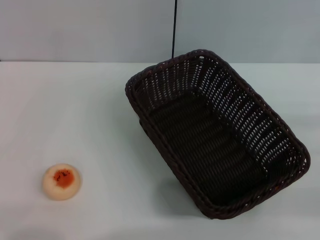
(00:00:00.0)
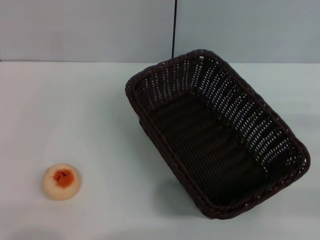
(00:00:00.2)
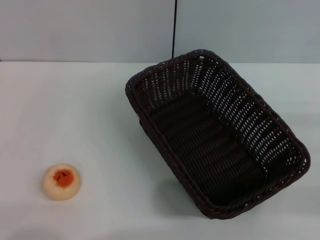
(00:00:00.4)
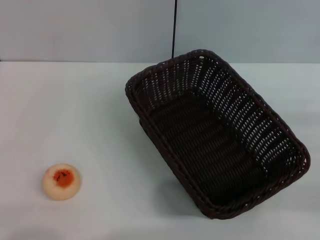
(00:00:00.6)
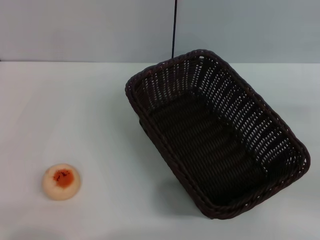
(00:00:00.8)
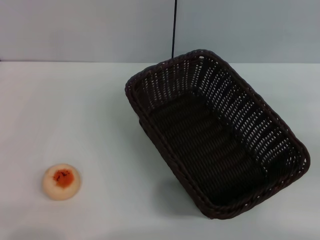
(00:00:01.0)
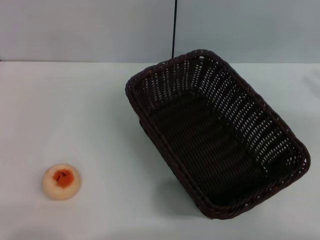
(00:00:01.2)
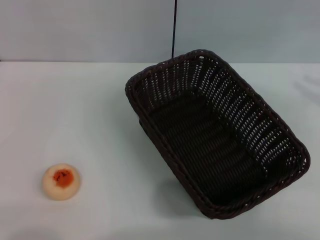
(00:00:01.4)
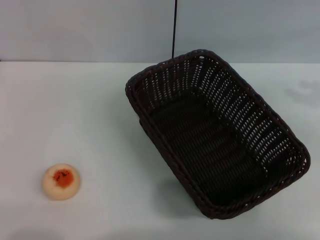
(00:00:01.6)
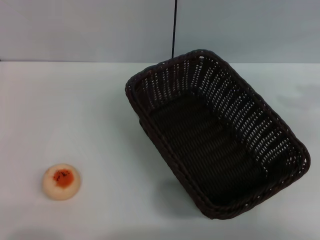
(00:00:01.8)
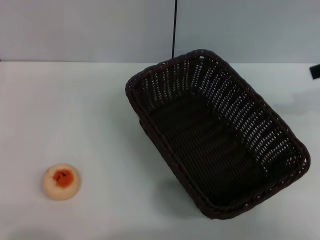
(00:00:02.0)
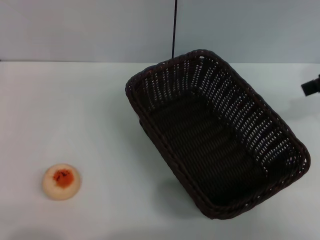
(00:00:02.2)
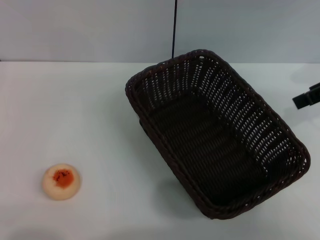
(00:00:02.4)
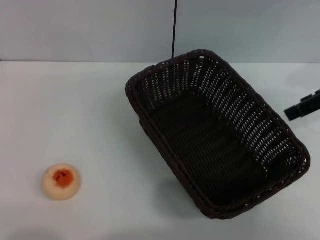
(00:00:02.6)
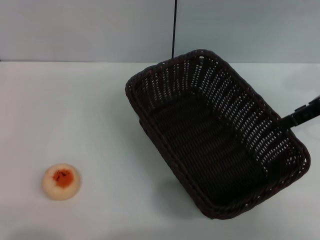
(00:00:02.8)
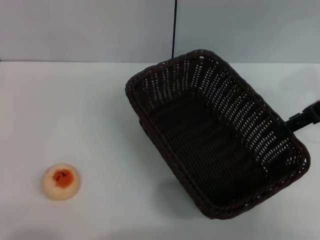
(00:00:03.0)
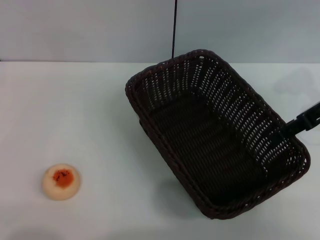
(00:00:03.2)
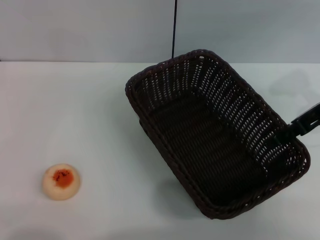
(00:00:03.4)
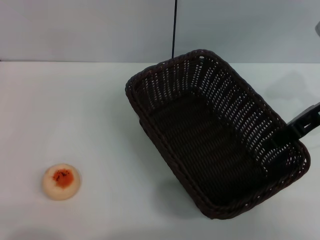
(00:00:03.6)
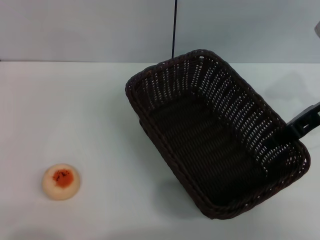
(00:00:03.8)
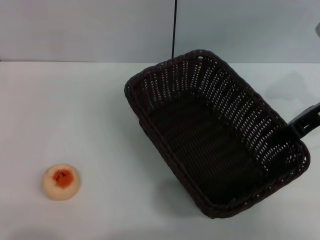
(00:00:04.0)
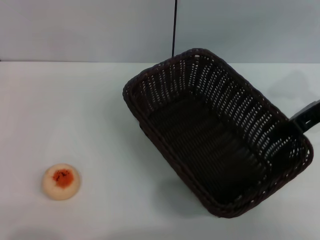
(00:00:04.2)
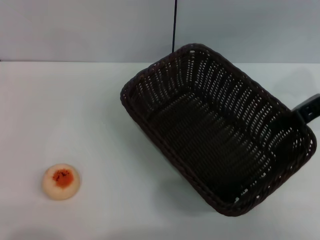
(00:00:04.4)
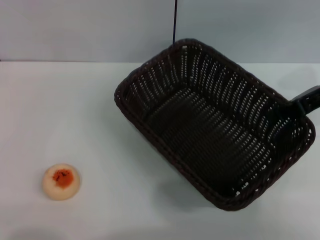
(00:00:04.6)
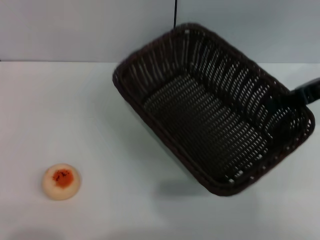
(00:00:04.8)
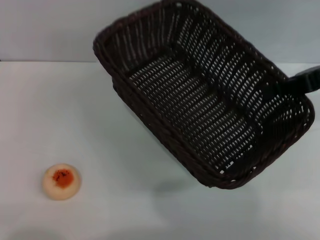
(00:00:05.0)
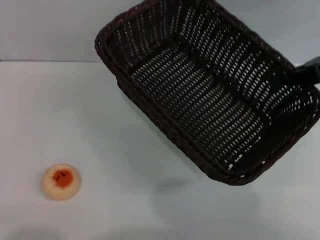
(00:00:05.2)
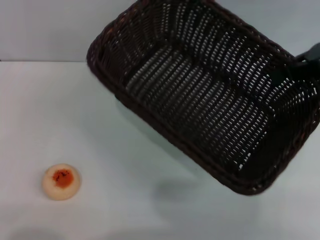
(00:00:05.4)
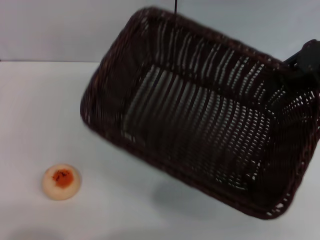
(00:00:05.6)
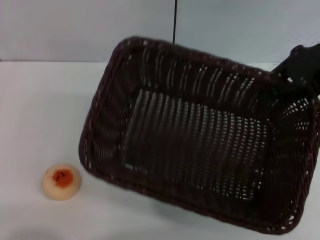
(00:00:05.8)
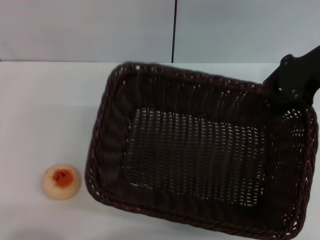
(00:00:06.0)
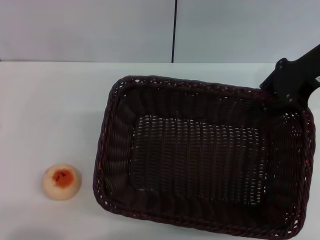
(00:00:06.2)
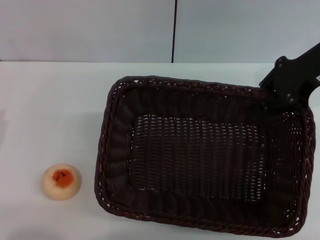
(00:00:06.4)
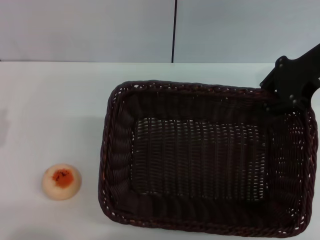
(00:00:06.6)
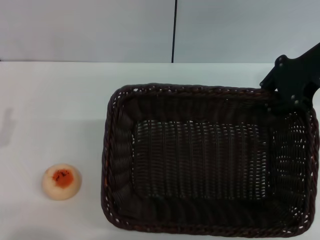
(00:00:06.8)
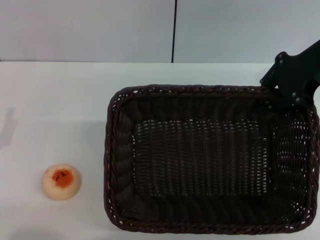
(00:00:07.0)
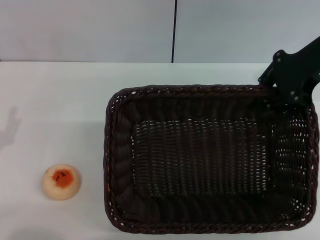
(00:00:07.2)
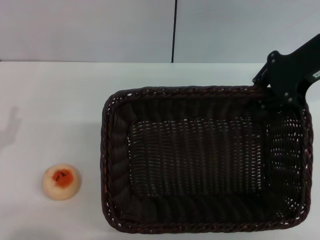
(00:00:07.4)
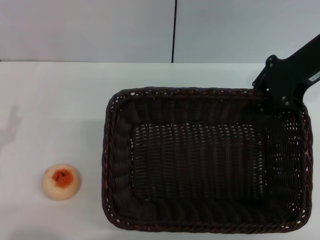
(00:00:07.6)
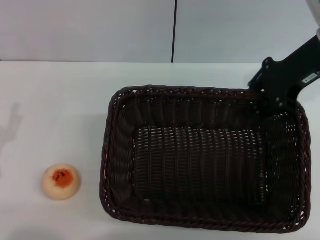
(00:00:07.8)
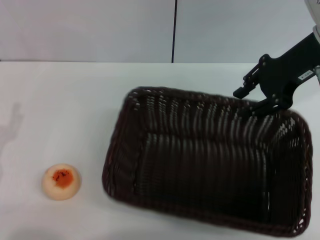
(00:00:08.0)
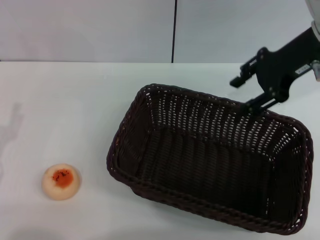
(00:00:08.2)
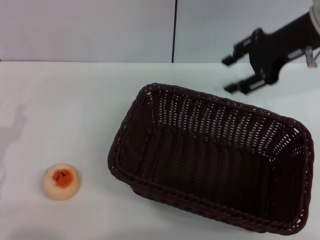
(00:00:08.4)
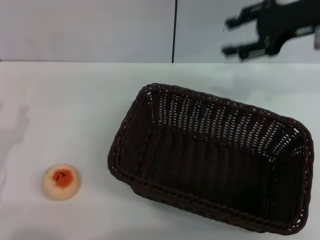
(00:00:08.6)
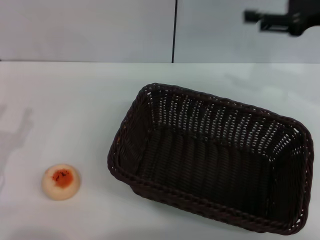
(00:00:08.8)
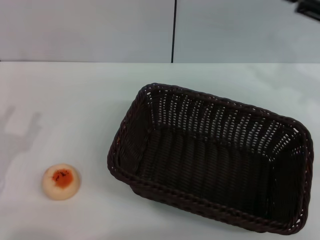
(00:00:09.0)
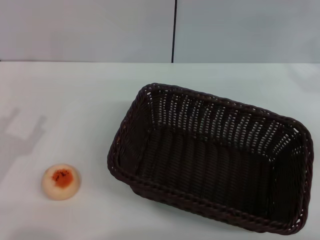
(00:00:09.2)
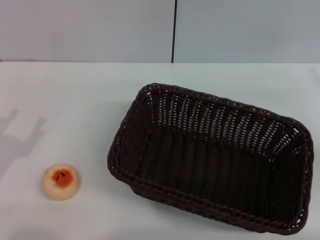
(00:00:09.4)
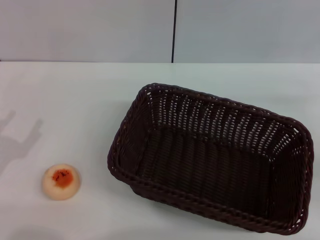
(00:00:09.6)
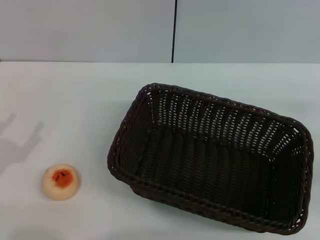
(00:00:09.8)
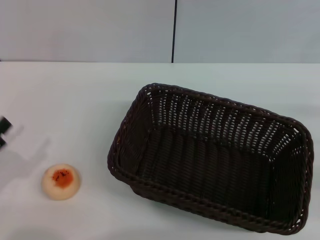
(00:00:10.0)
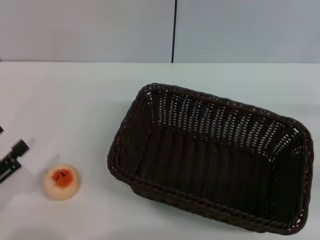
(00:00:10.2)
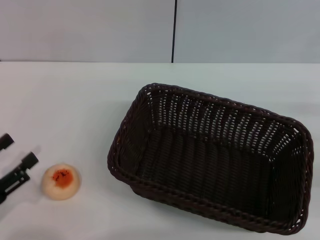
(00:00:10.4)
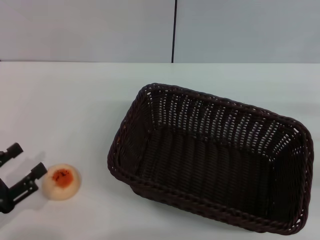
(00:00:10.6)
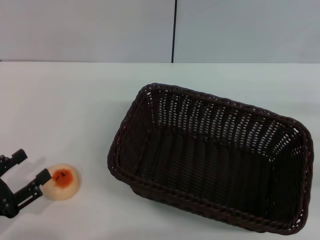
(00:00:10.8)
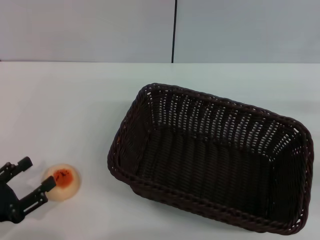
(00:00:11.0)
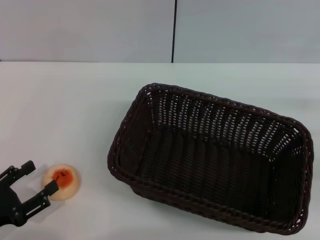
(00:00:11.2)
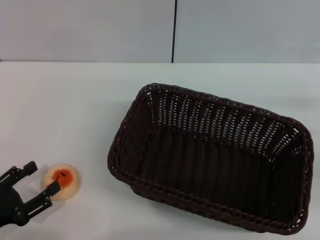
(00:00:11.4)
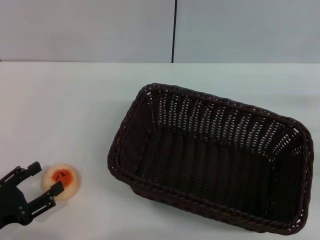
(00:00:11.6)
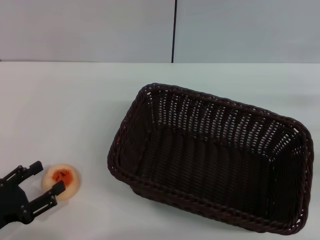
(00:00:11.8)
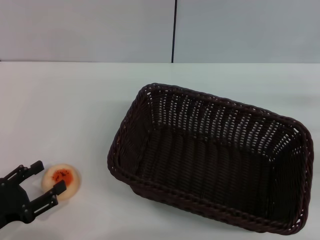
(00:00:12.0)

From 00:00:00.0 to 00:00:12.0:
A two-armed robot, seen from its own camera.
Step, from 00:00:00.0 to 00:00:08.4: Move the basket to the center of view with the right gripper.
From 00:00:01.6 to 00:00:03.0: The right gripper travels to the left and downward by roughly 10 cm, and opens its fingers.
From 00:00:03.0 to 00:00:04.4: The right gripper closes.
From 00:00:04.4 to 00:00:06.0: The right gripper is displaced upward by roughly 5 cm.
From 00:00:06.0 to 00:00:07.6: There are only small adjustments of the grippers.
From 00:00:07.6 to 00:00:09.0: The right gripper is displaced to the right by about 10 cm, and opens up.
From 00:00:09.0 to 00:00:10.4: The right gripper heads downward, backward and to the right, covering roughly 15 cm.
From 00:00:10.4 to 00:00:12.0: The grippers make only small movements.

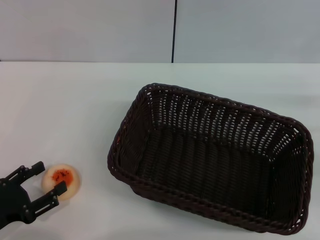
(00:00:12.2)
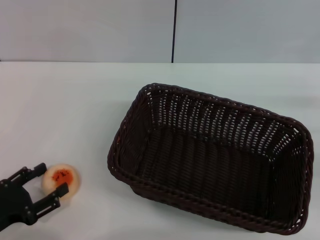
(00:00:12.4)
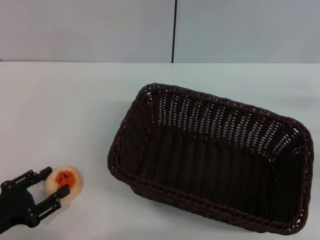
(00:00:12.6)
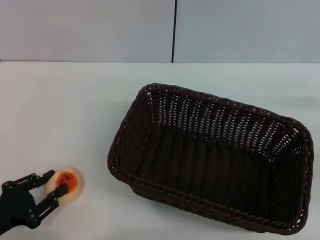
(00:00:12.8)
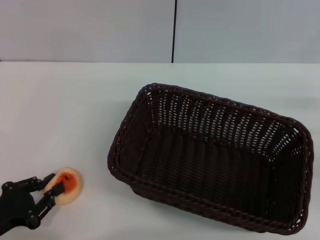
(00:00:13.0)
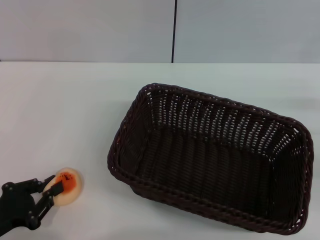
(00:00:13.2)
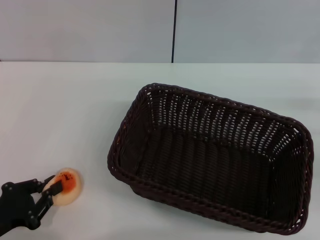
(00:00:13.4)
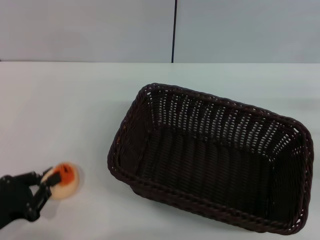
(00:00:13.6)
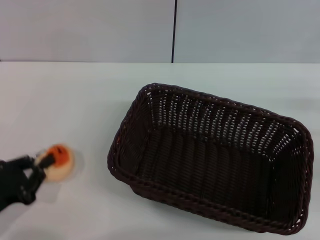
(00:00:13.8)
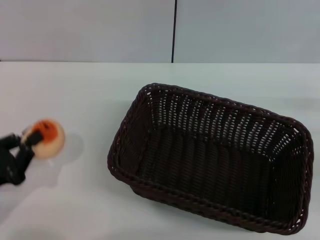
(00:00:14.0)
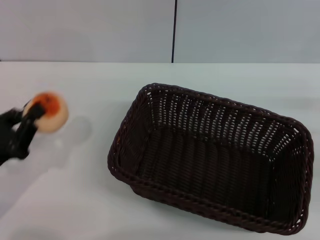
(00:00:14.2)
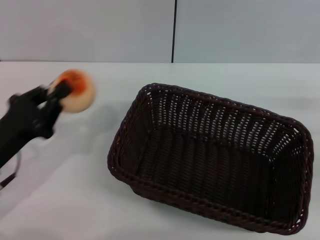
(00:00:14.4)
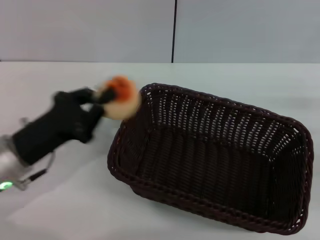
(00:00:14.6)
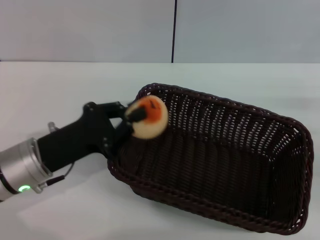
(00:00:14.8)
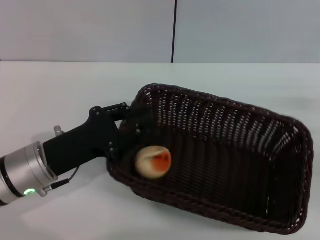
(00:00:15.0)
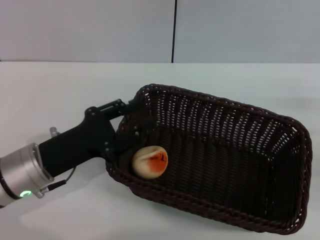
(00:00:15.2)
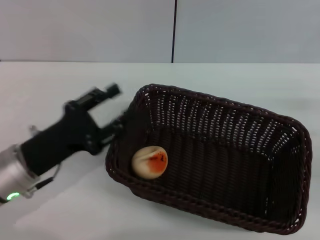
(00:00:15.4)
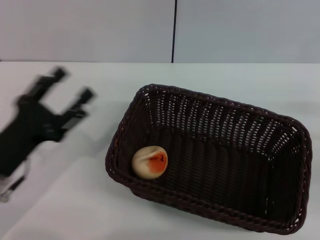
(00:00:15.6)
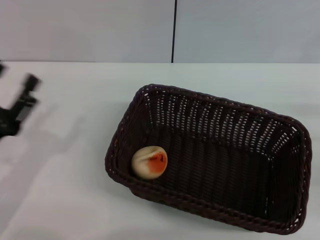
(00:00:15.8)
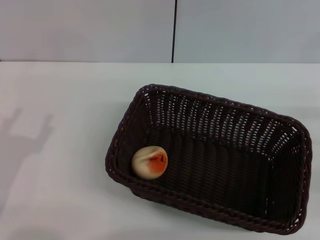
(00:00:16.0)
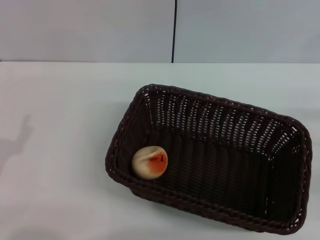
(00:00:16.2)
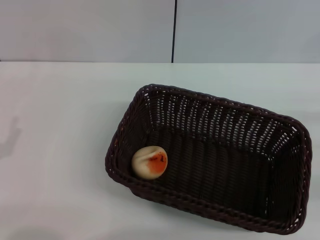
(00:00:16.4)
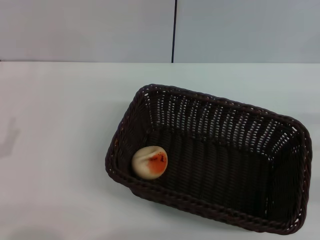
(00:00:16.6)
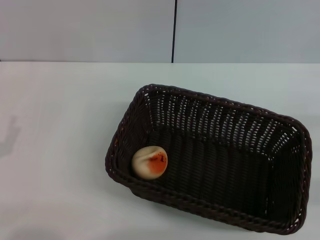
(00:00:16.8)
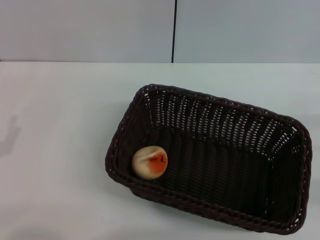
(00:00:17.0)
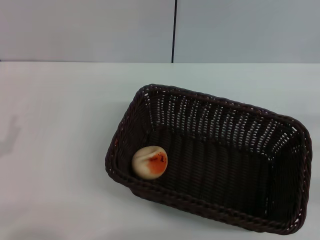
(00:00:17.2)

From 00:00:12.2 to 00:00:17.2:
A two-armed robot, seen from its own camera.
Step, from 00:00:14.2 to 00:00:15.4: Place the egg yolk pastry into the basket with the left gripper.
From 00:00:12.2 to 00:00:13.8: The left gripper closes.
From 00:00:13.8 to 00:00:15.6: The left gripper is displaced to the right and forward by roughly 10 cm, and opens its fingers.
From 00:00:15.6 to 00:00:17.2: The left gripper shifts some 10 cm to the left and backward.
